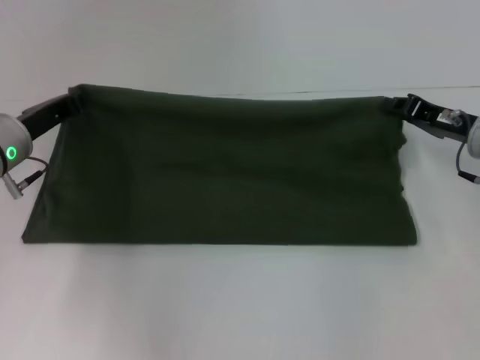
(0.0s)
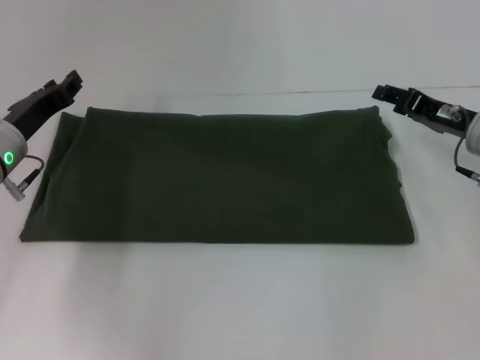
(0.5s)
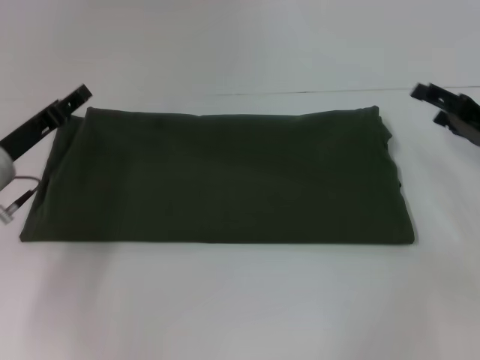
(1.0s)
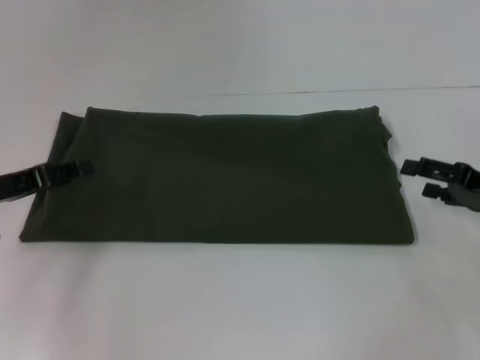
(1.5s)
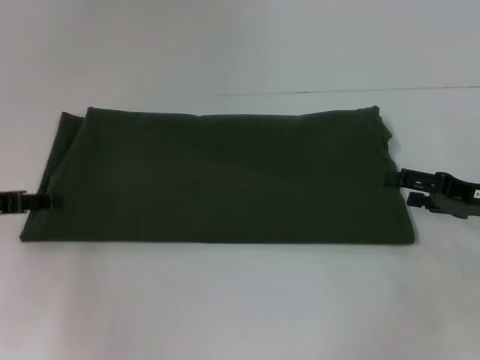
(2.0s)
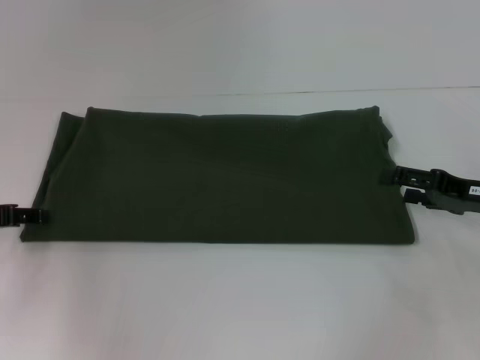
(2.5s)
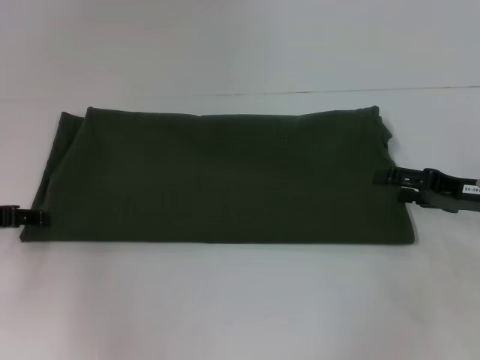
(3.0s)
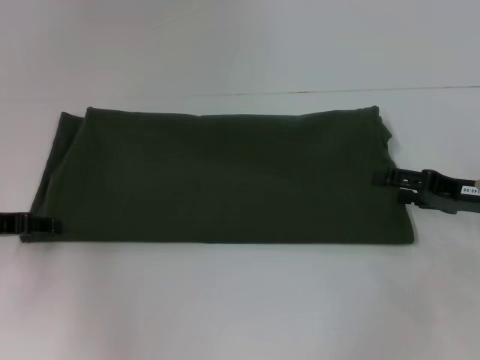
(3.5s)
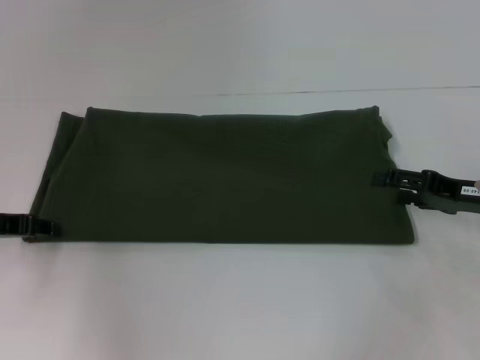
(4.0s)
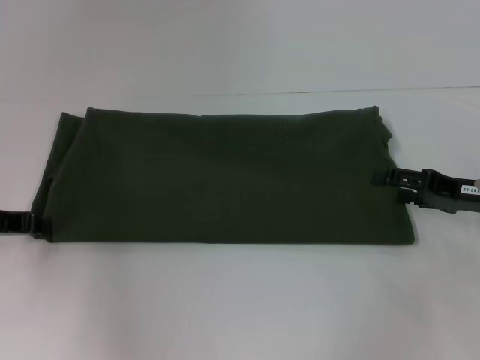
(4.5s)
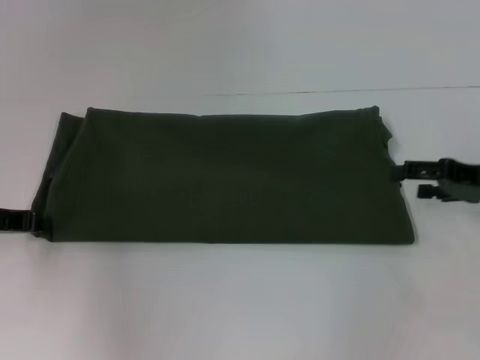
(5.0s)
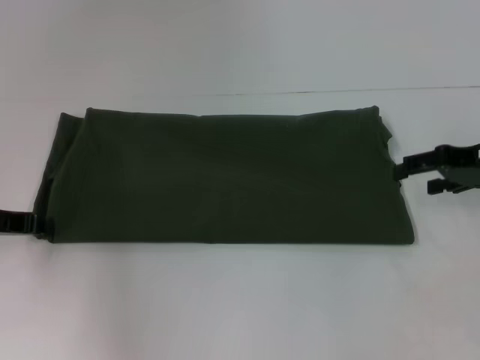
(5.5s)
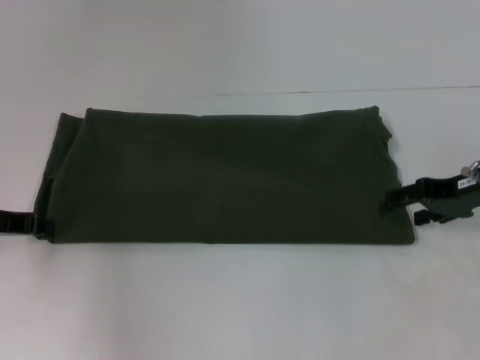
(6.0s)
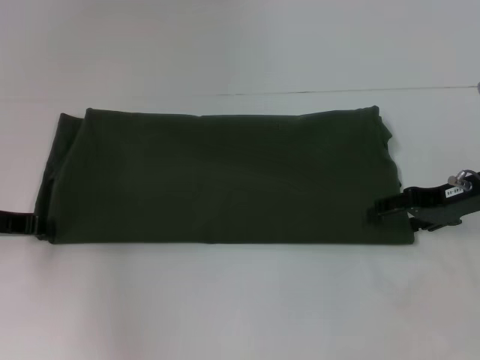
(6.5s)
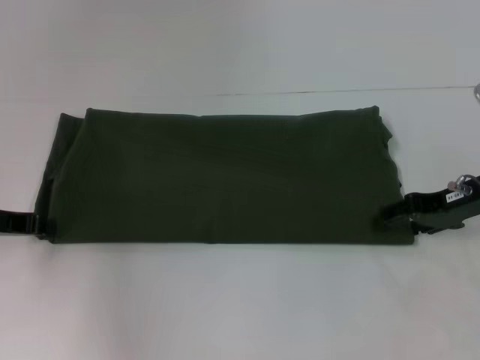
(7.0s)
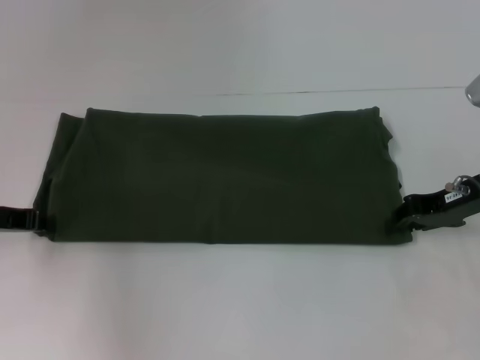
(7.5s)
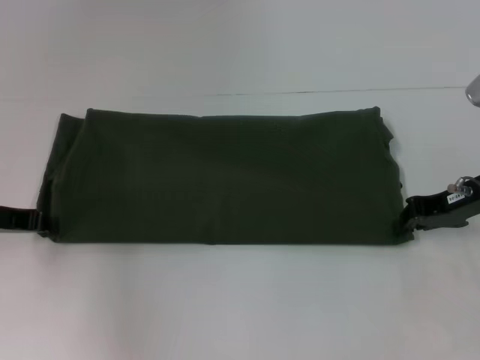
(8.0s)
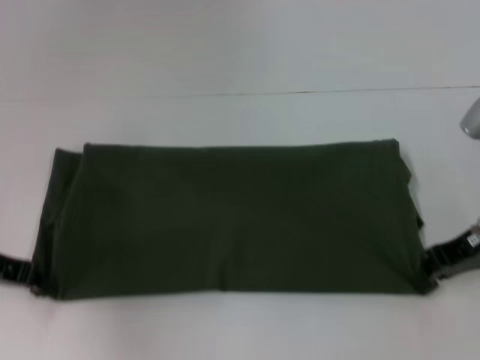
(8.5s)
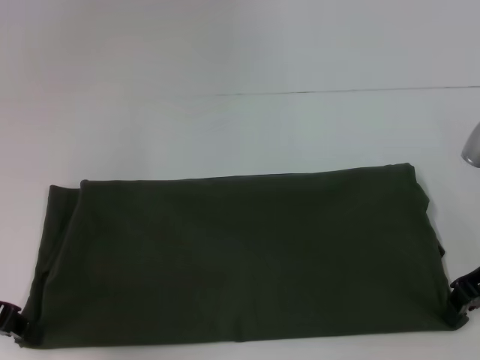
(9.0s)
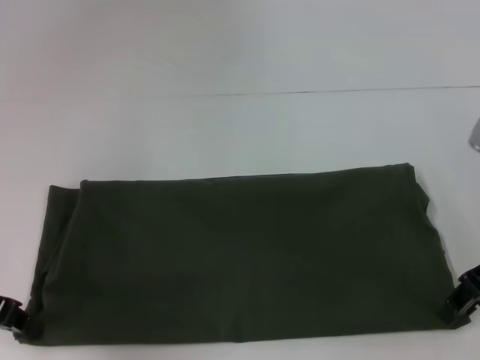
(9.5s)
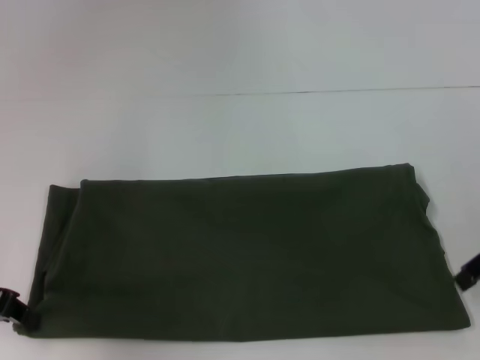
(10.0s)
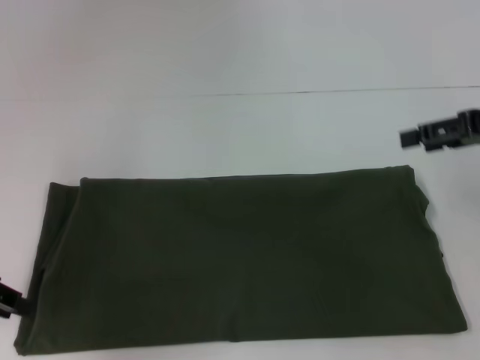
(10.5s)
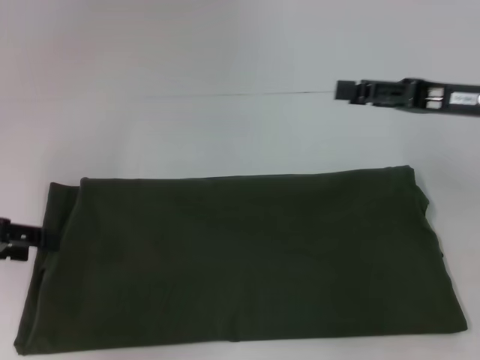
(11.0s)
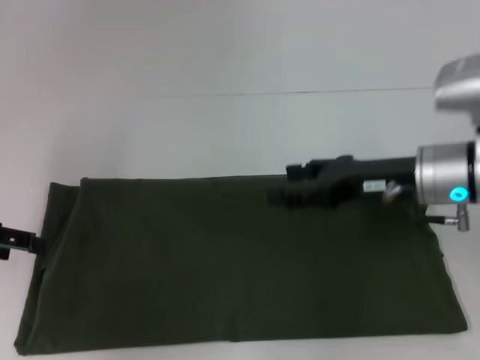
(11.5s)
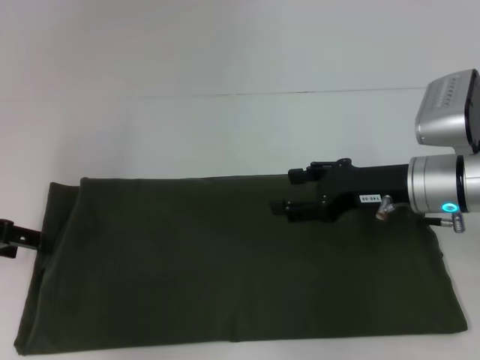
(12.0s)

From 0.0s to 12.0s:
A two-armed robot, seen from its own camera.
From 0.0s to 2.0s: The left gripper heads to the left and backward, covering some 10 cm, and opens, while the right gripper shifts roughly 5 cm backward, and opens up.
From 2.0s to 4.0s: There are only small adjustments of the grippers.
From 4.0s to 6.0s: The right gripper shifts by about 5 cm.
From 6.0s to 8.0s: The right gripper closes its fingers.
From 8.0s to 10.0s: The left gripper moves about 5 cm, while the right gripper is displaced upward by approximately 5 cm, and opens up.
From 10.0s to 12.0s: The left gripper opens. The right gripper goes approximately 15 cm to the left and downward.

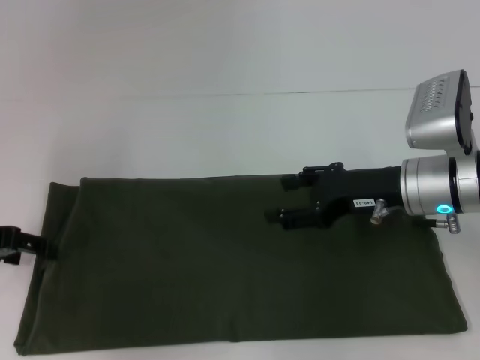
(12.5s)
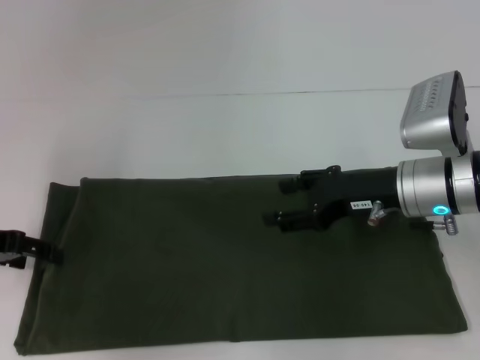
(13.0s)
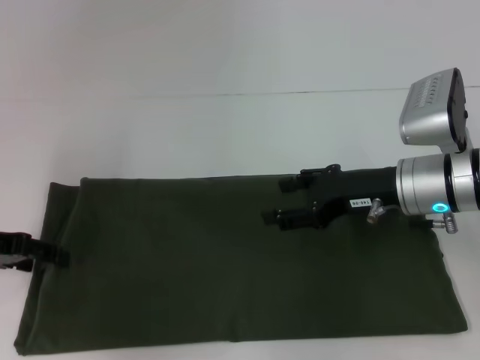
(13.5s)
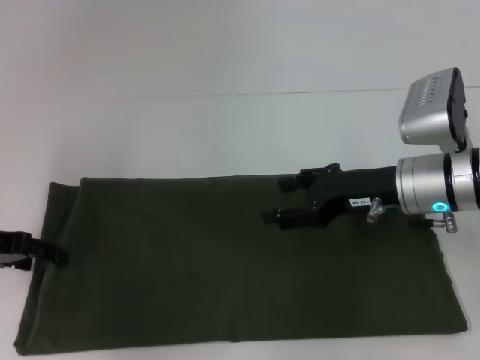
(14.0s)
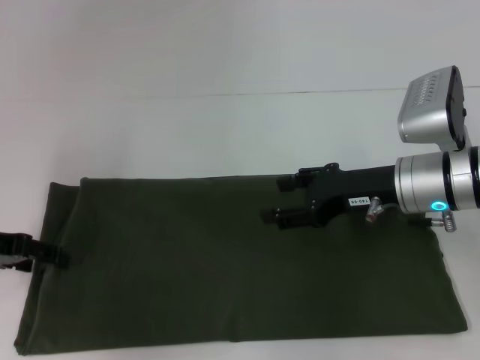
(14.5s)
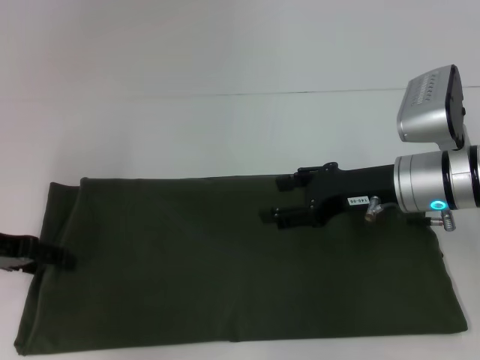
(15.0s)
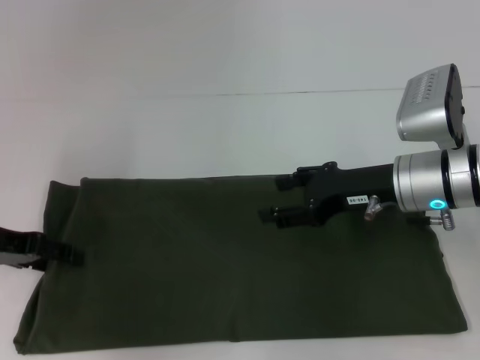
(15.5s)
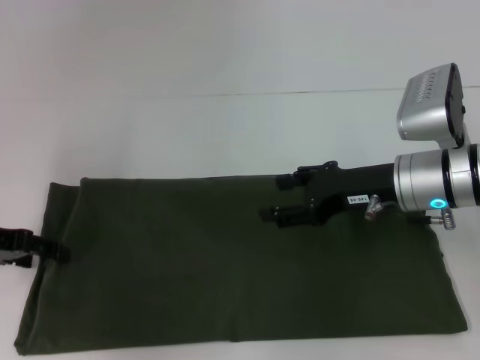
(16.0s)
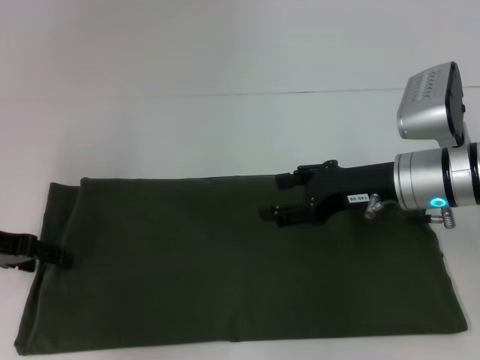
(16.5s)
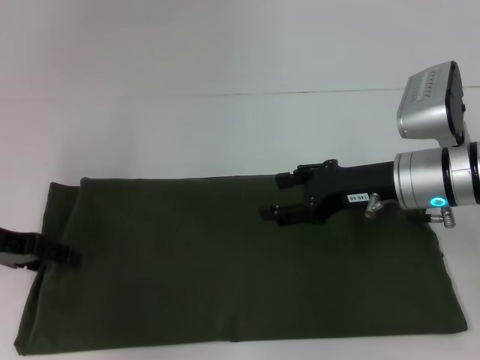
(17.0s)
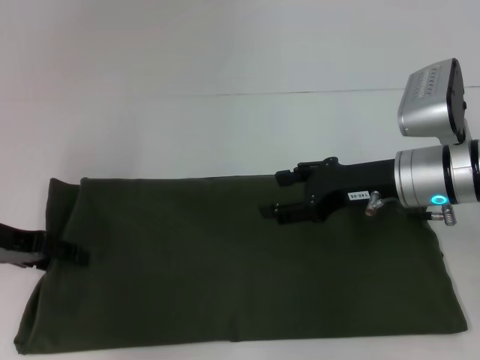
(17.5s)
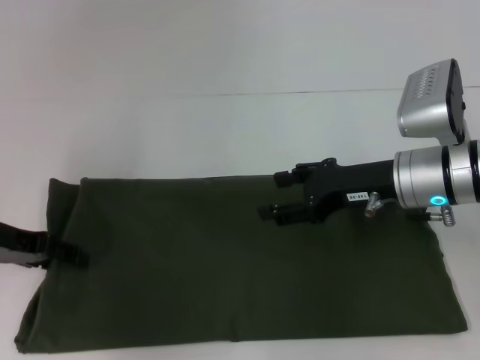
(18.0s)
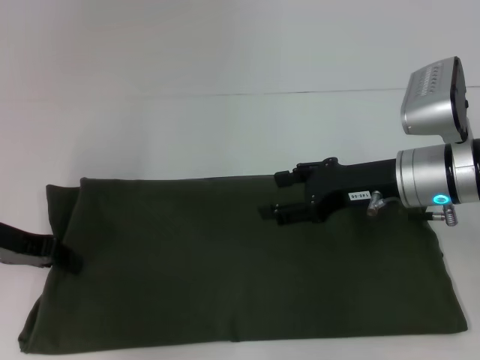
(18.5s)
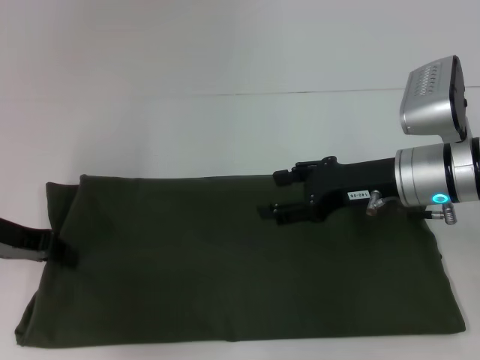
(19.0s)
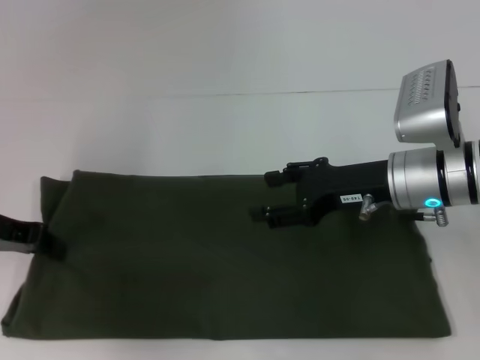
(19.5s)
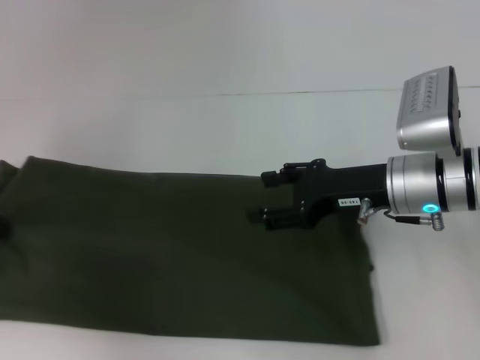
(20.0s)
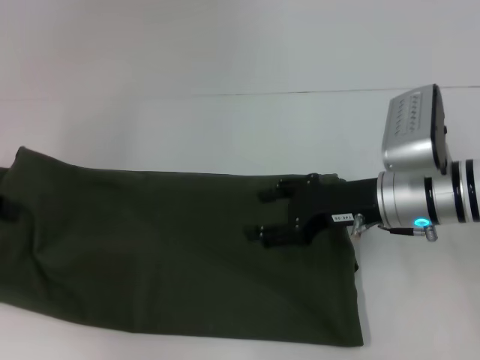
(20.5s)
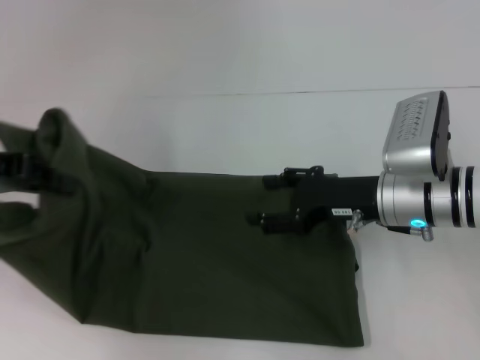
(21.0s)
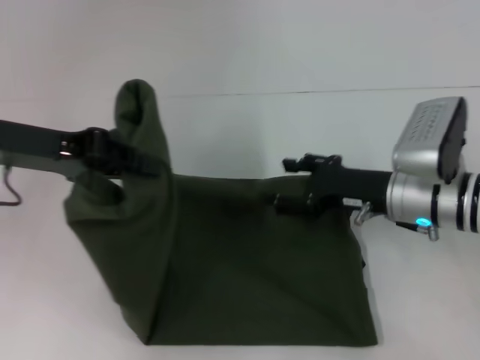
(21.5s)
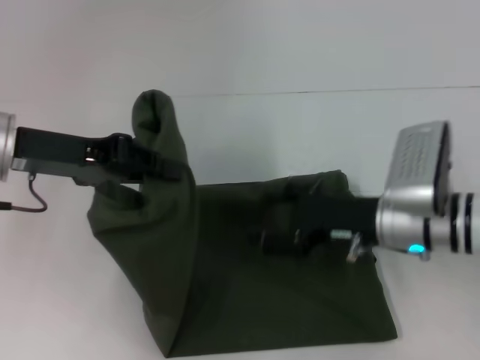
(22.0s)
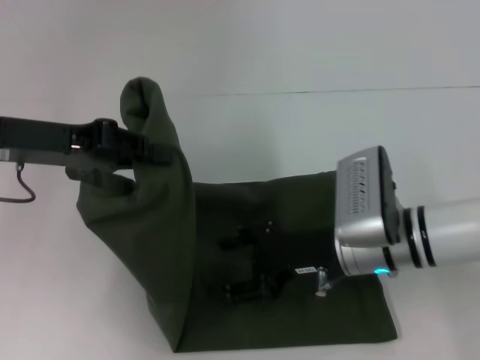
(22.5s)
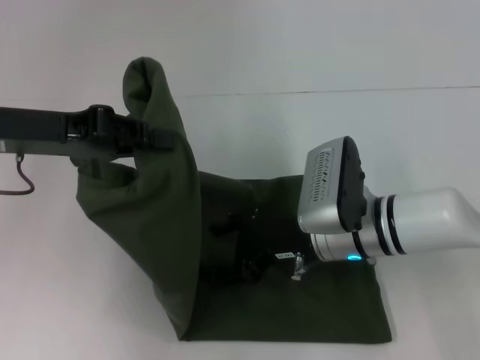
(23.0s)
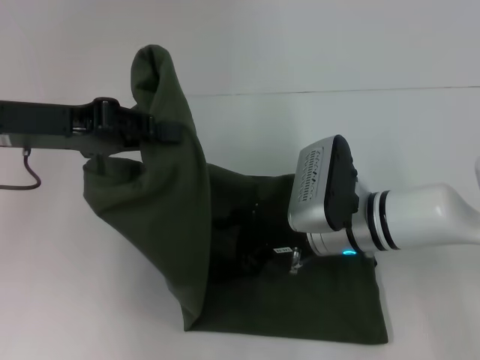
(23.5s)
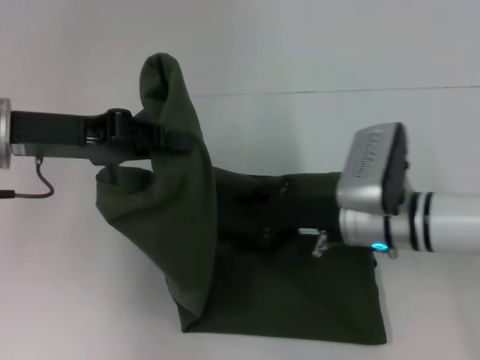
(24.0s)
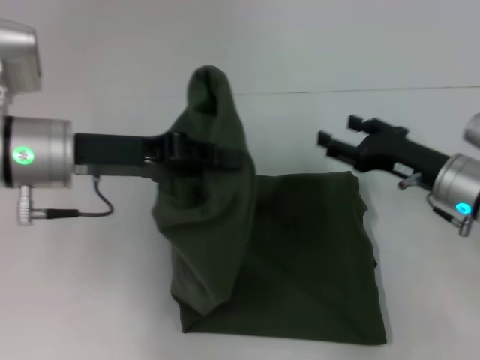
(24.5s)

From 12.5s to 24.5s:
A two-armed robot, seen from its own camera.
From 12.5s to 14.5s: Neither gripper changes place.
From 14.5s to 16.5s: Both grippers stay about where they are.
From 16.5s to 18.5s: The left gripper closes.
From 18.5s to 20.5s: The left gripper goes about 10 cm to the left and upward, and closes.
From 20.5s to 22.5s: The right gripper shifts by roughly 5 cm. Meanwhile the left gripper travels to the right by about 10 cm.
From 22.5s to 24.5s: The left gripper moves to the right, roughly 5 cm. The right gripper is displaced to the right by about 10 cm.

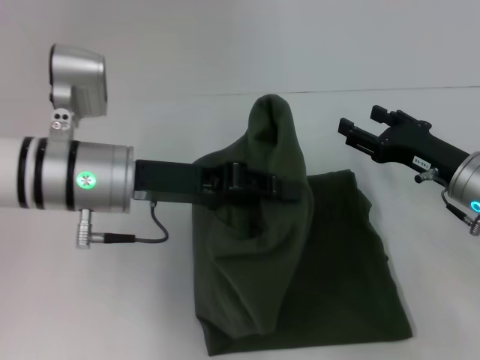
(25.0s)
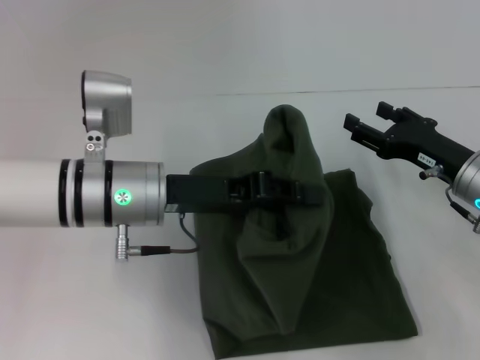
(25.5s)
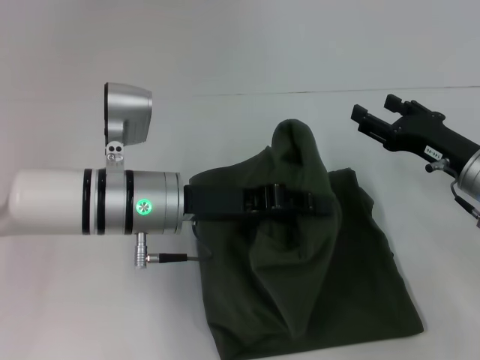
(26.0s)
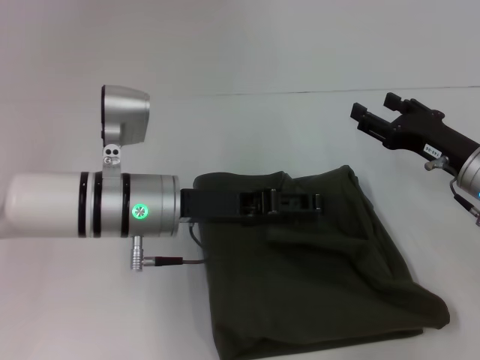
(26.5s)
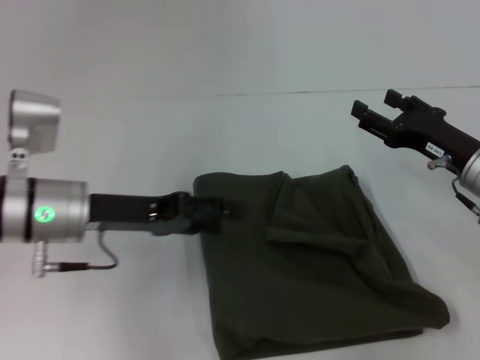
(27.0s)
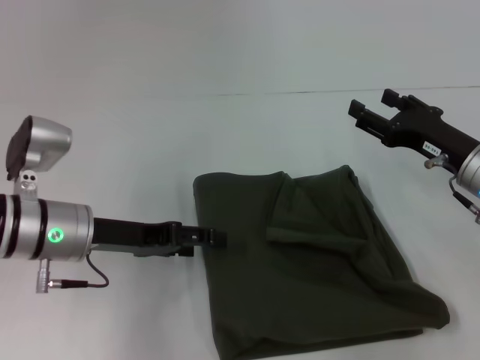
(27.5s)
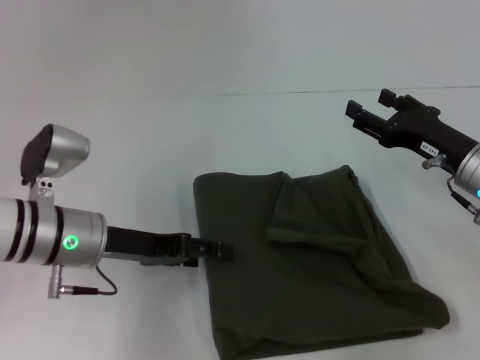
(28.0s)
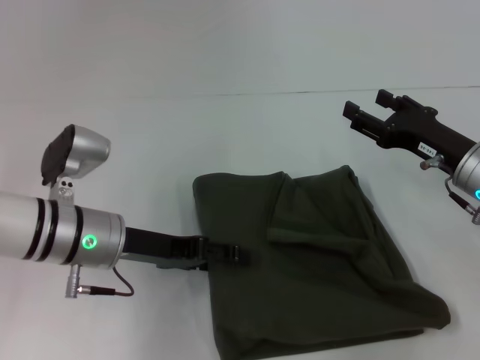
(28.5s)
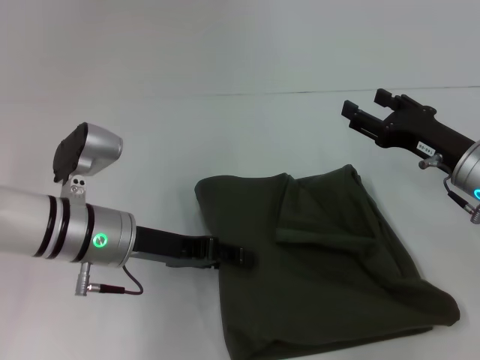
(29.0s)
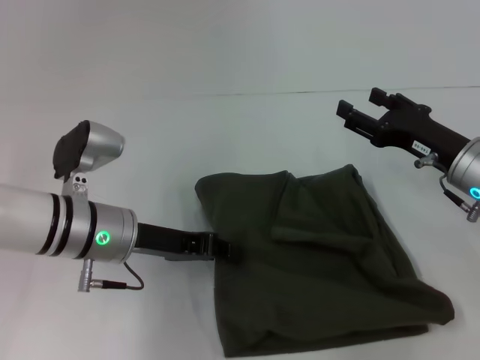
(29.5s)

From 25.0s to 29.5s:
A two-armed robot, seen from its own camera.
From 25.0s to 27.0s: The left gripper moves approximately 5 cm, and opens up.
From 27.0s to 29.5s: The left gripper ends up about 5 cm from where it was, and closes.
